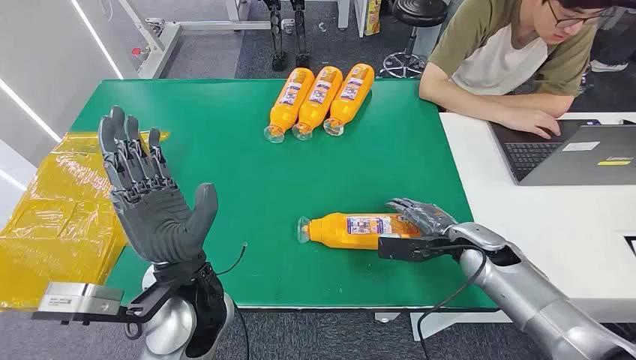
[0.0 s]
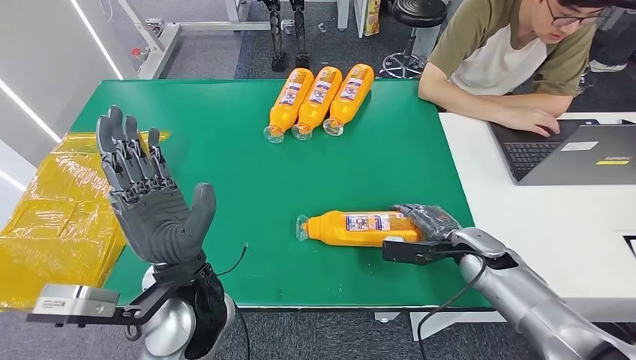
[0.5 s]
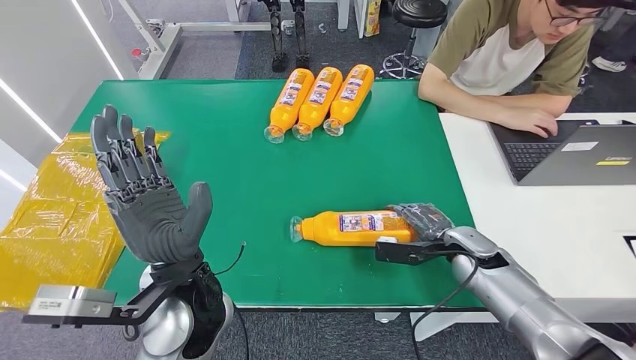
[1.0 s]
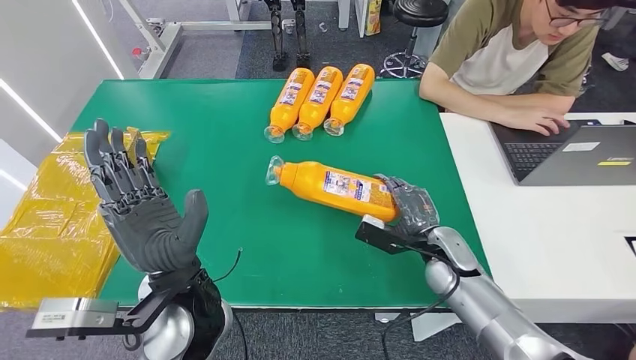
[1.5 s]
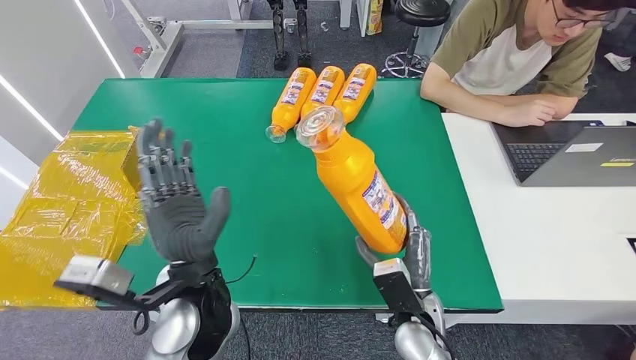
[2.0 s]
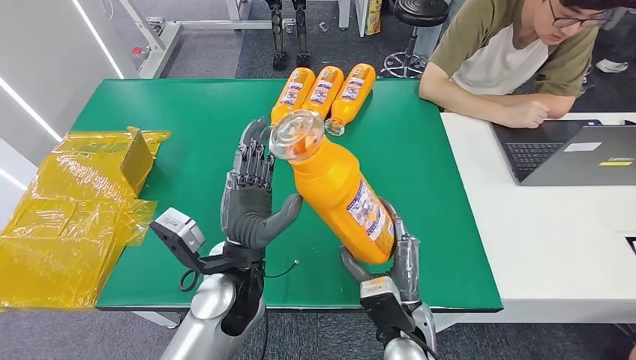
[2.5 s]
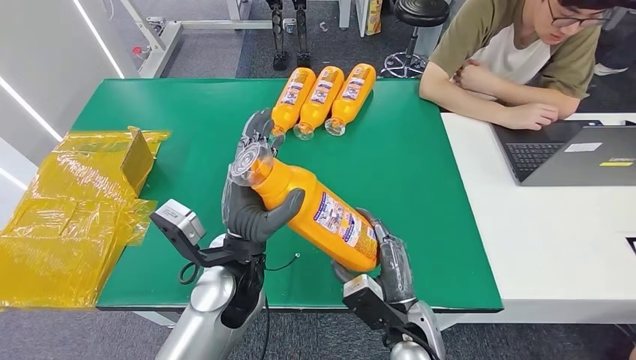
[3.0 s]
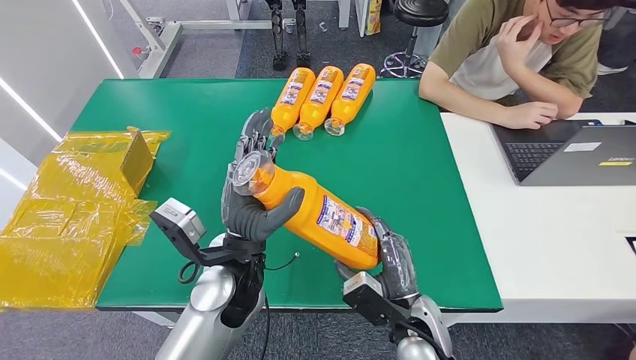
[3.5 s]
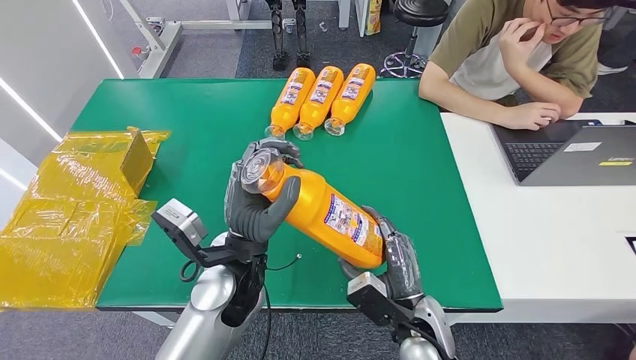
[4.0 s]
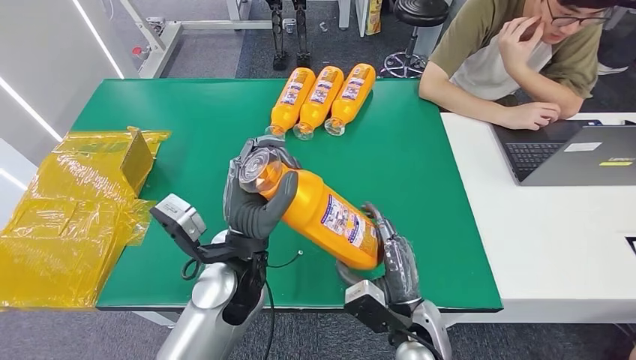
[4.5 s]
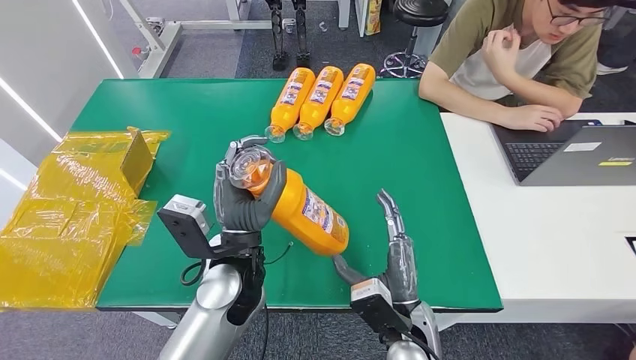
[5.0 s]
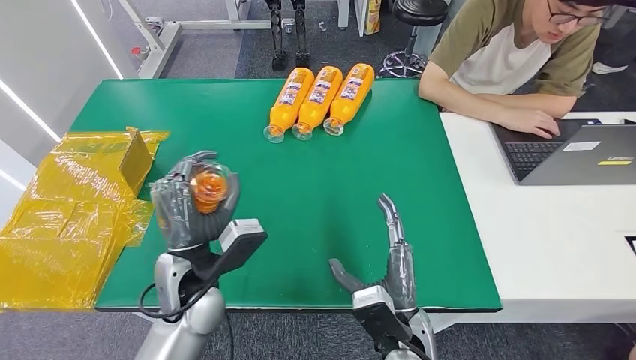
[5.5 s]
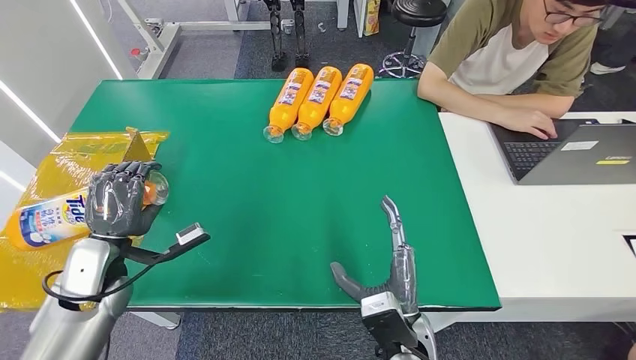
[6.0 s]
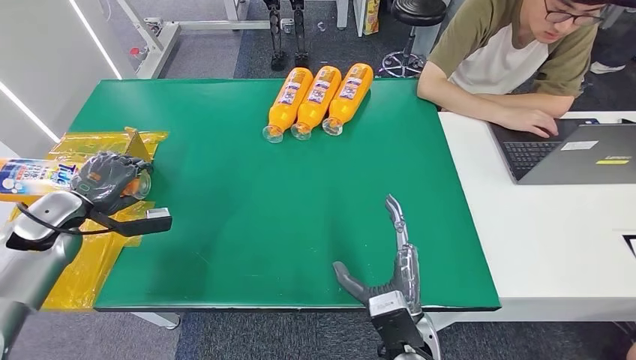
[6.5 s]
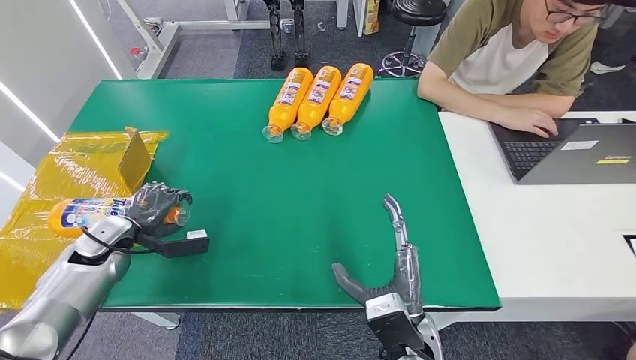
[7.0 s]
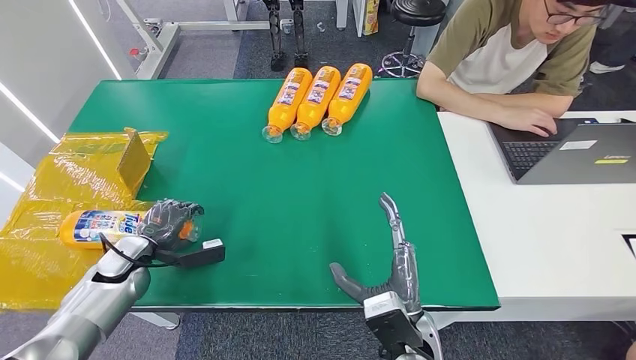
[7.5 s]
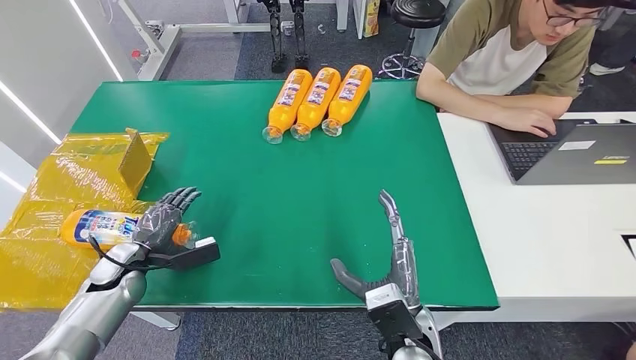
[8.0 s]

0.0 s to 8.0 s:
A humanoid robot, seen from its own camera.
Step, 0.0 to 2.0 s: Pick up the bottle from the table.
Step, 2.5 to 8.0 s: Turn the bottle to the front side.
6.0 to 8.0 s: The left hand shifts roughly 10 cm downward and to the left.

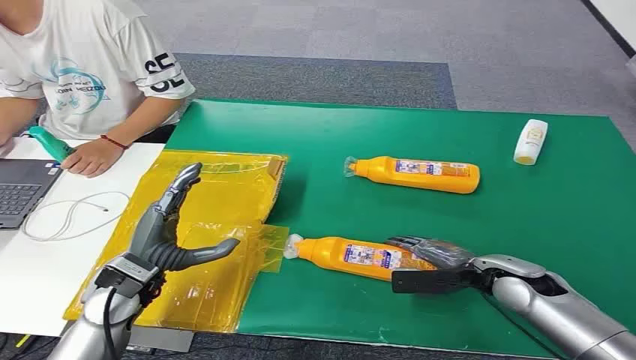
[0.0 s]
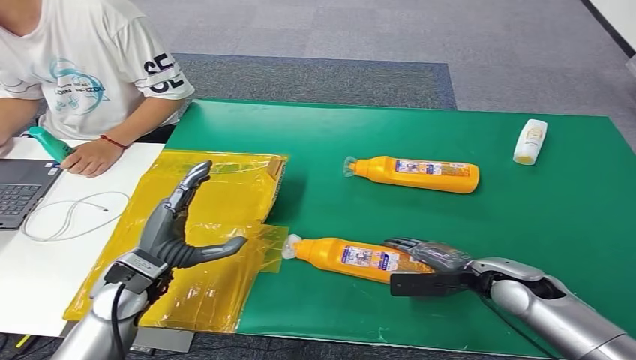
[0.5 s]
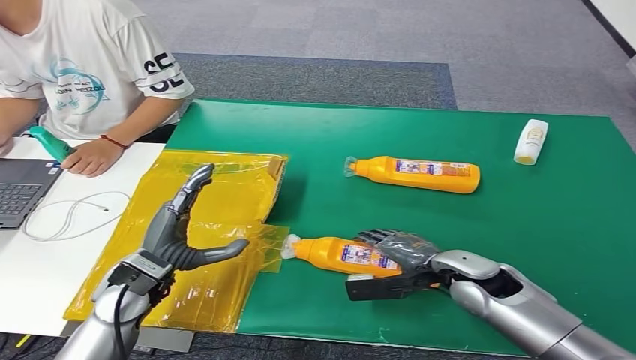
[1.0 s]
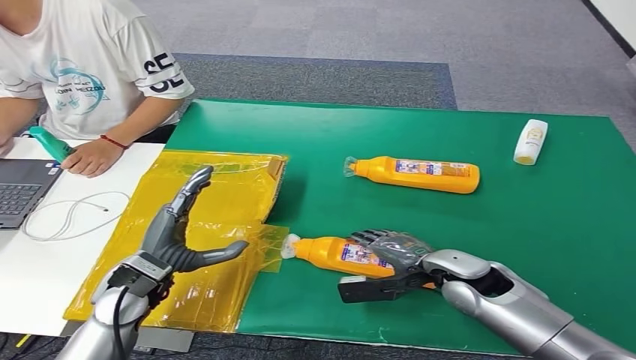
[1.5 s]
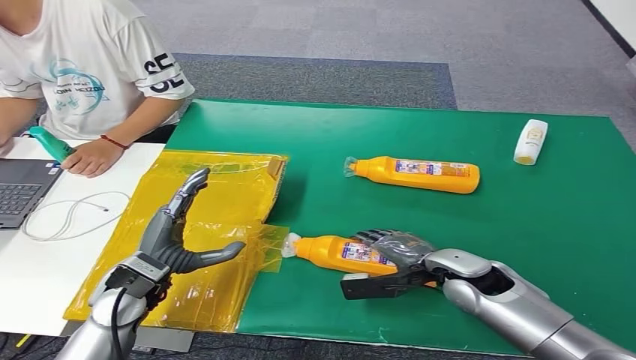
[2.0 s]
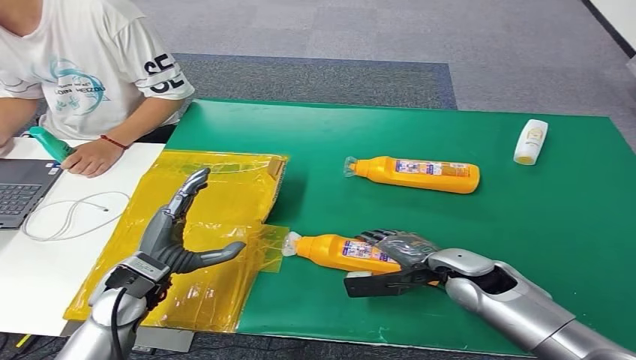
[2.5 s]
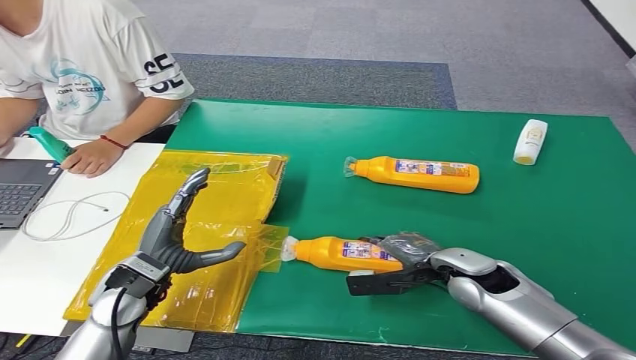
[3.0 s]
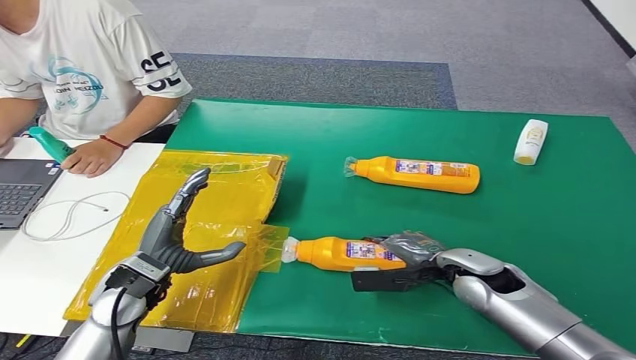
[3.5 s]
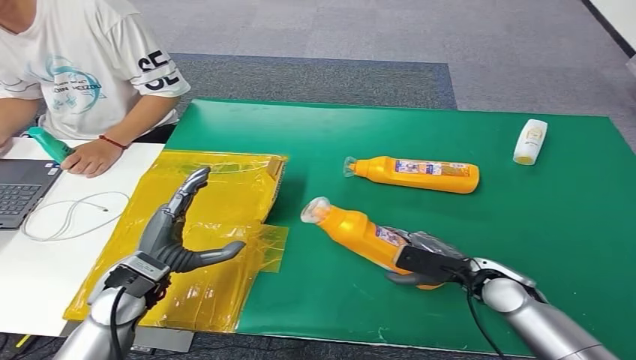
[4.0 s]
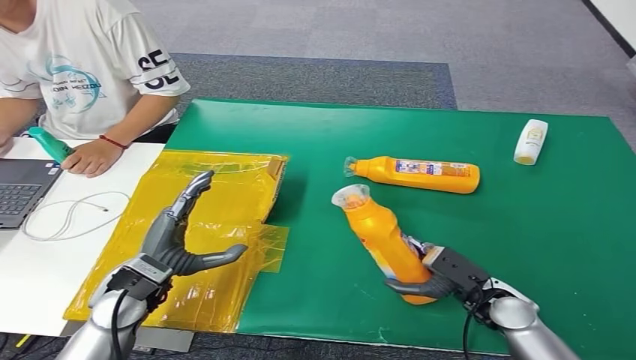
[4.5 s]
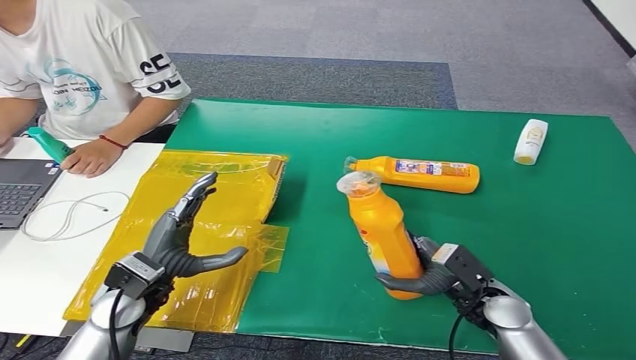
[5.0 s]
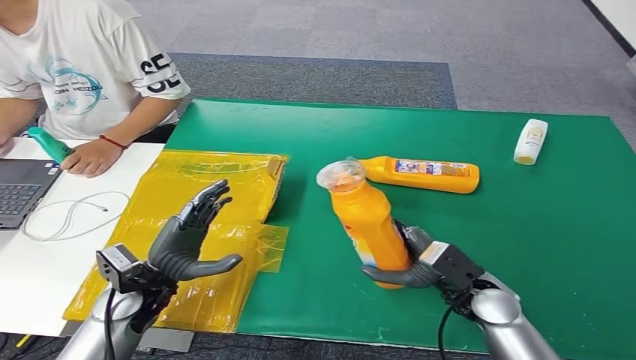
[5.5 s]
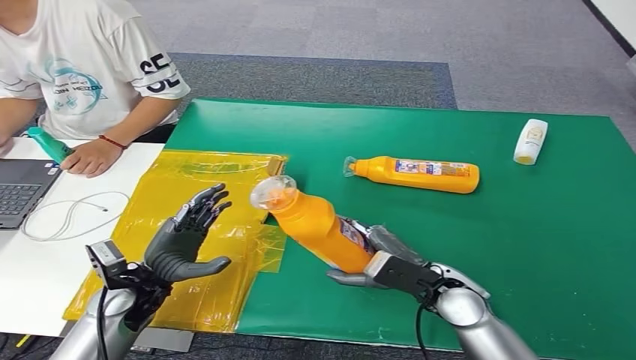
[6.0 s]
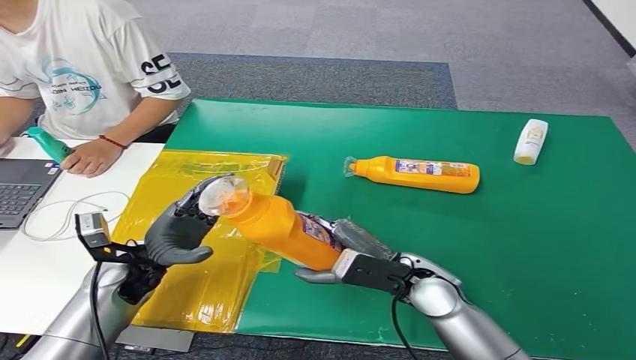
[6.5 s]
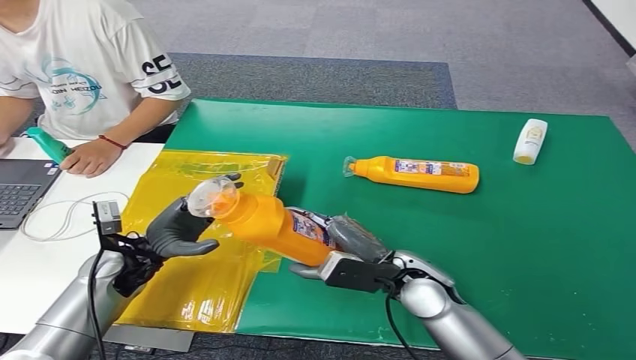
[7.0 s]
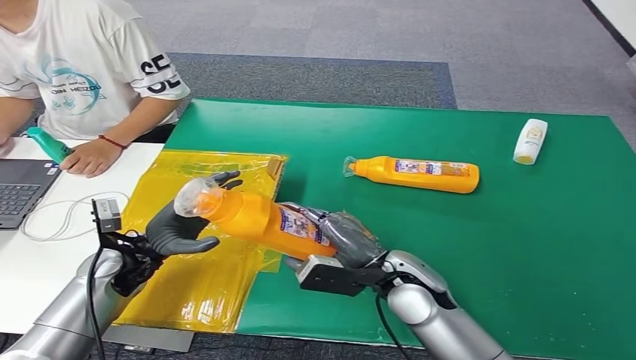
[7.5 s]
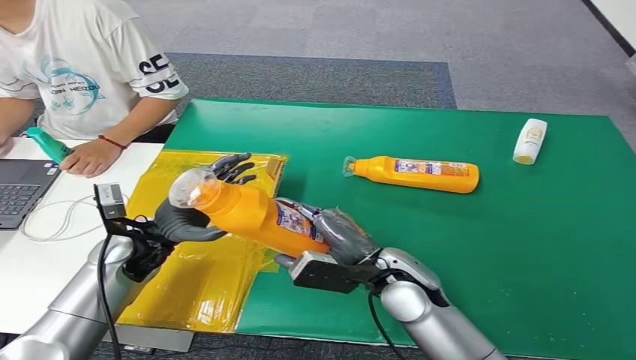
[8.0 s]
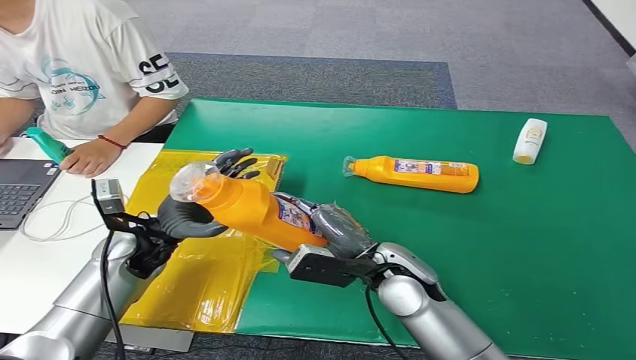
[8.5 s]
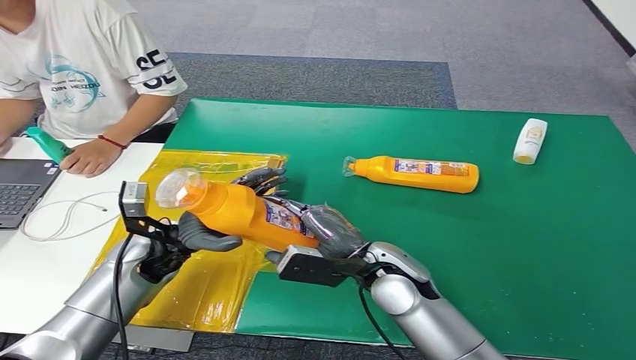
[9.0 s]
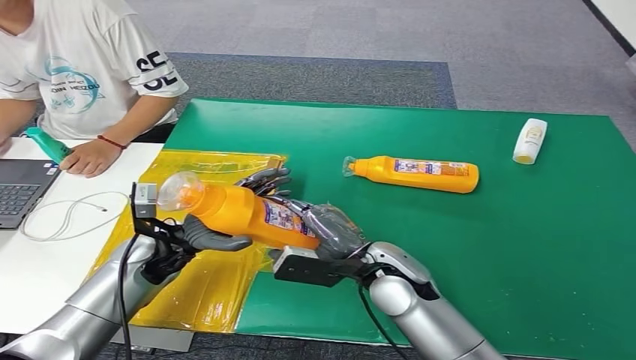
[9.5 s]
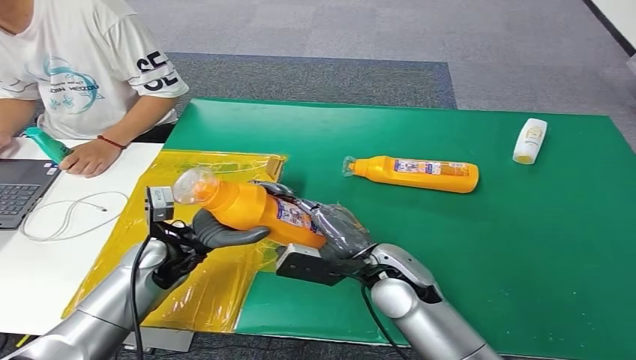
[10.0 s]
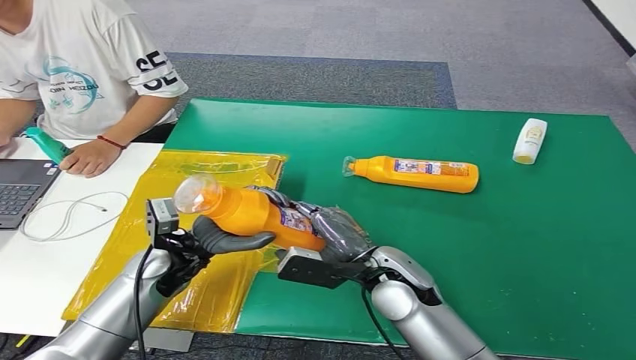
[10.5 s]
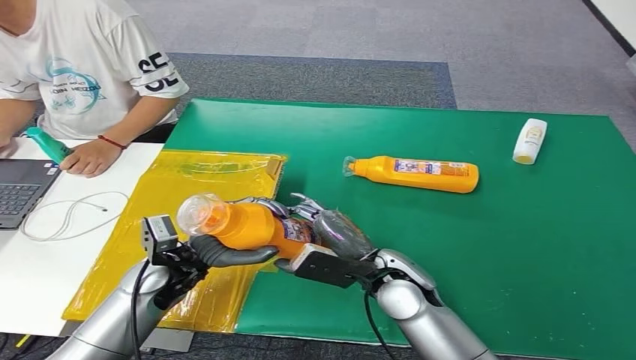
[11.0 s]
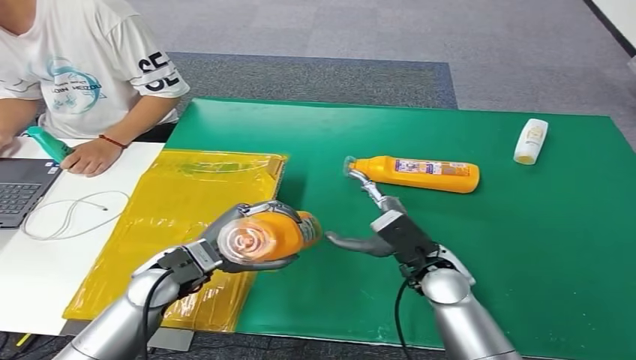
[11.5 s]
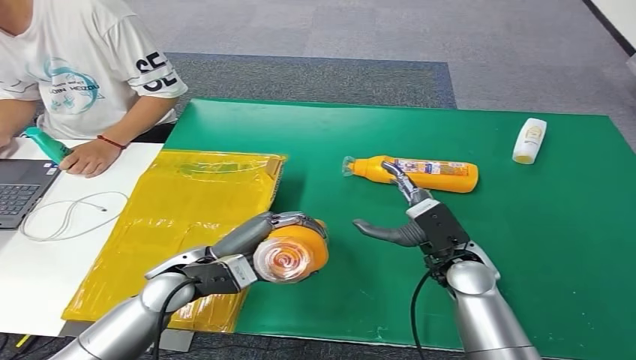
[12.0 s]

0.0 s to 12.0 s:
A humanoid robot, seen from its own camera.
Step, 0.0 to 5.0 s: Pick up the bottle from the table.
2.0 to 4.0 s: The right hand goes about 5 cm to the right.
4.0 to 6.0 s: The right hand is displaced to the left by some 10 cm.
6.0 to 8.0 s: The right hand is displaced to the left by roughly 10 cm; the left hand shifts about 5 cm forward.
8.0 to 10.0 s: The left hand heads to the right, covering approximately 5 cm.
10.0 to 12.0 s: The left hand moves about 5 cm; the right hand goes roughly 10 cm to the right.
